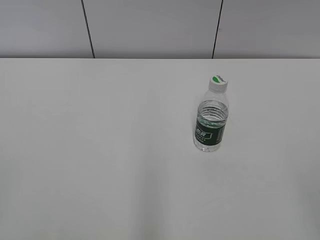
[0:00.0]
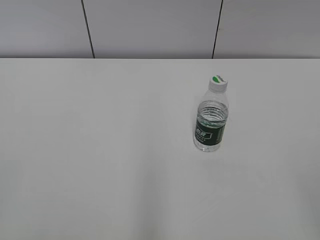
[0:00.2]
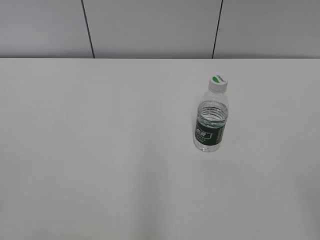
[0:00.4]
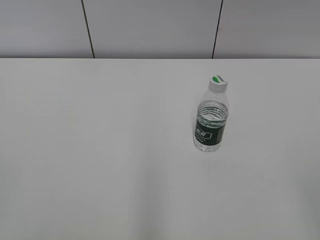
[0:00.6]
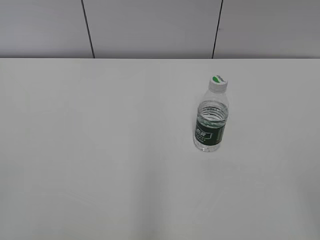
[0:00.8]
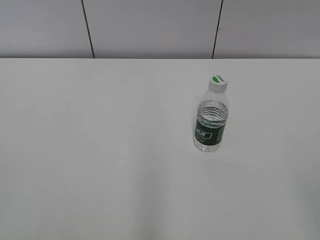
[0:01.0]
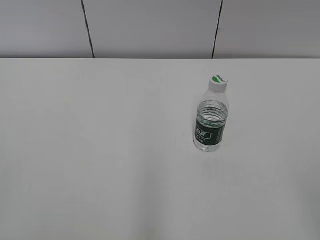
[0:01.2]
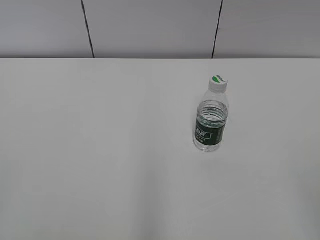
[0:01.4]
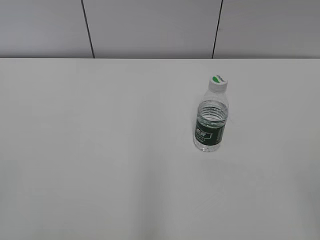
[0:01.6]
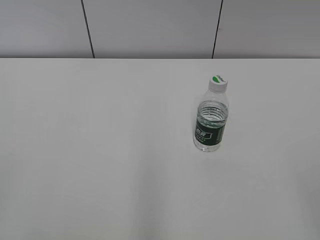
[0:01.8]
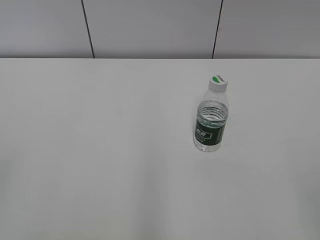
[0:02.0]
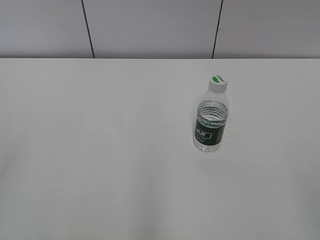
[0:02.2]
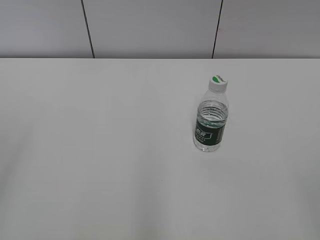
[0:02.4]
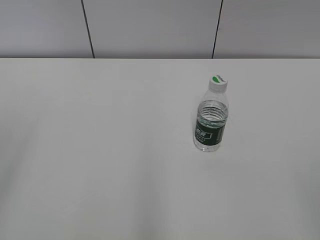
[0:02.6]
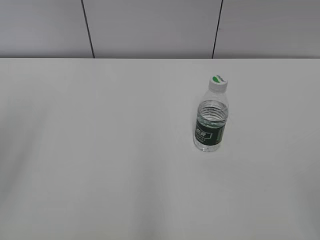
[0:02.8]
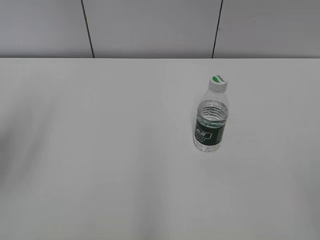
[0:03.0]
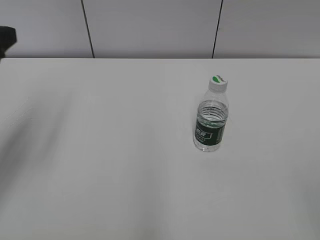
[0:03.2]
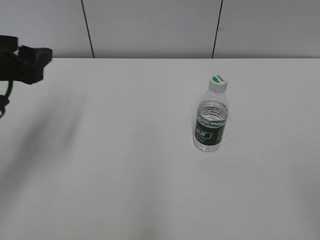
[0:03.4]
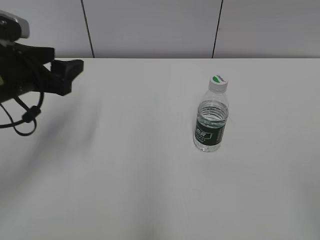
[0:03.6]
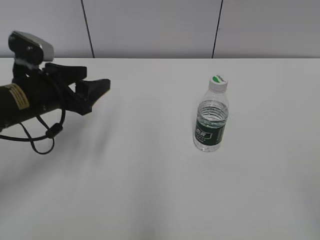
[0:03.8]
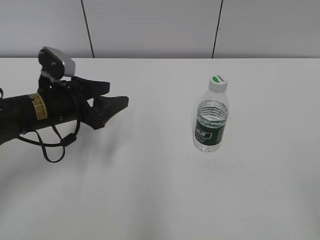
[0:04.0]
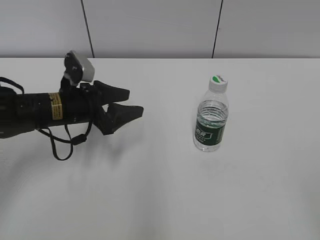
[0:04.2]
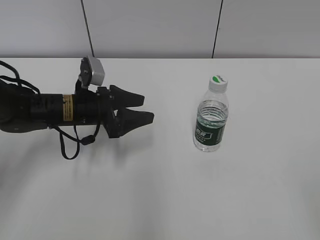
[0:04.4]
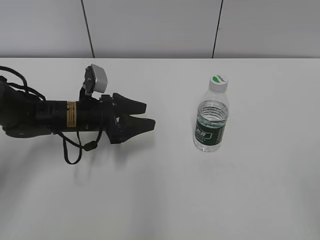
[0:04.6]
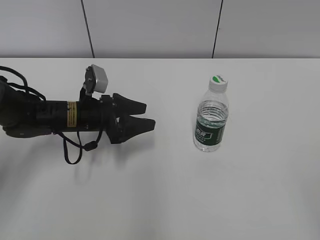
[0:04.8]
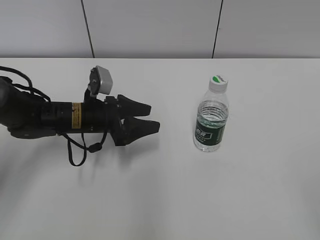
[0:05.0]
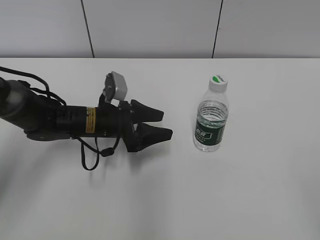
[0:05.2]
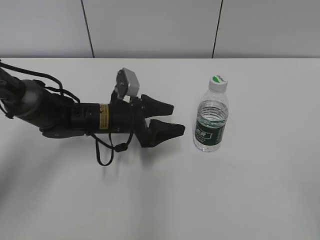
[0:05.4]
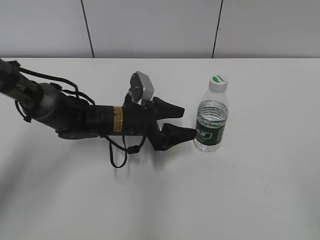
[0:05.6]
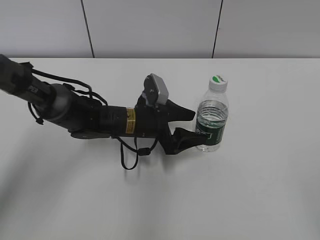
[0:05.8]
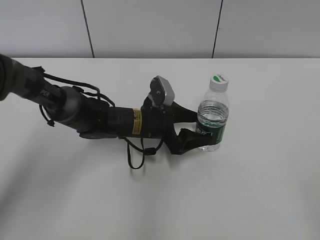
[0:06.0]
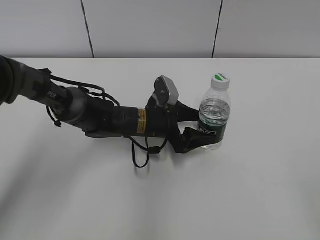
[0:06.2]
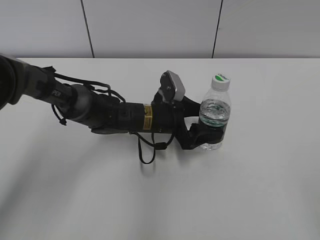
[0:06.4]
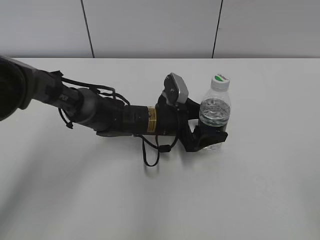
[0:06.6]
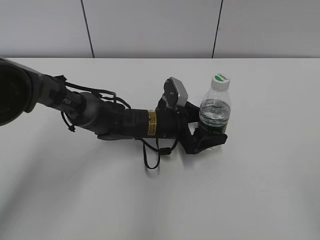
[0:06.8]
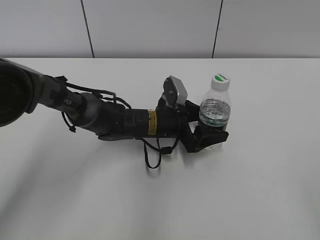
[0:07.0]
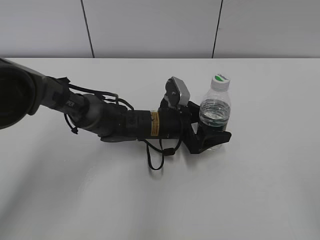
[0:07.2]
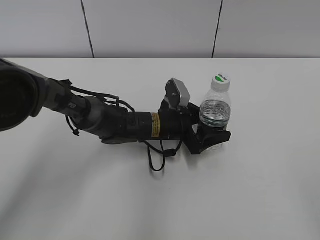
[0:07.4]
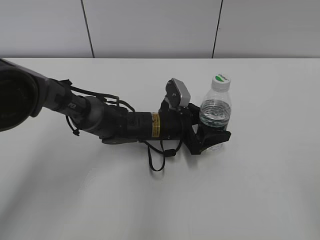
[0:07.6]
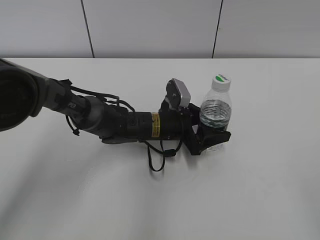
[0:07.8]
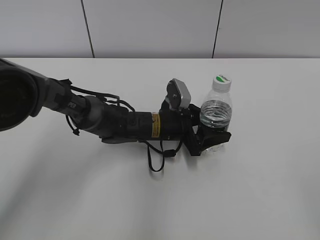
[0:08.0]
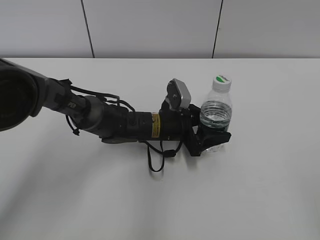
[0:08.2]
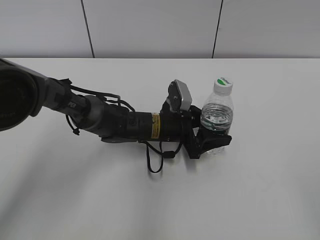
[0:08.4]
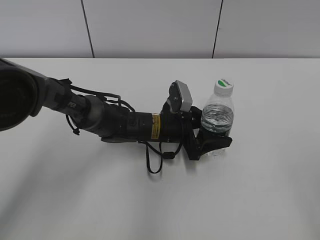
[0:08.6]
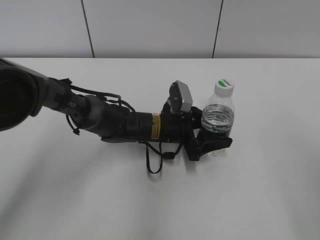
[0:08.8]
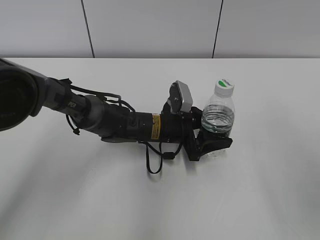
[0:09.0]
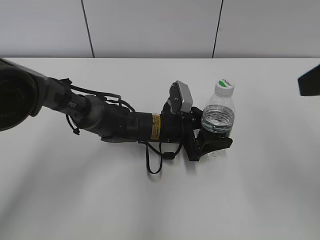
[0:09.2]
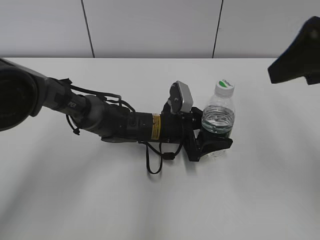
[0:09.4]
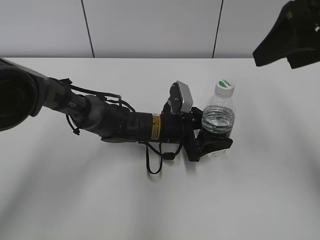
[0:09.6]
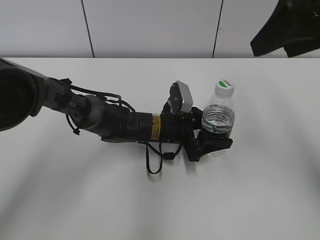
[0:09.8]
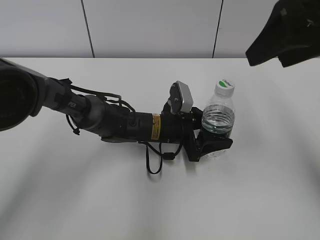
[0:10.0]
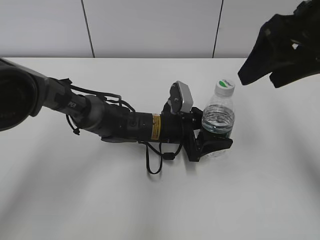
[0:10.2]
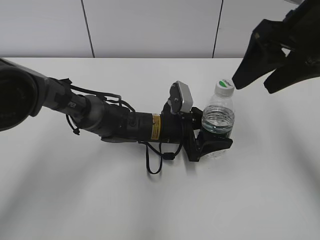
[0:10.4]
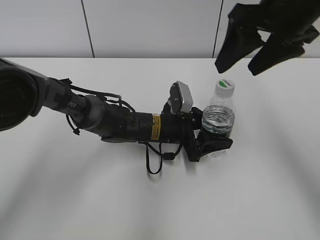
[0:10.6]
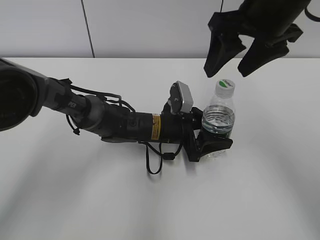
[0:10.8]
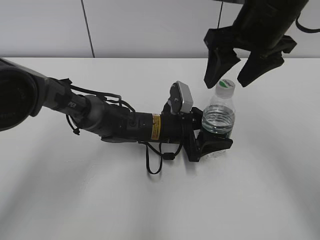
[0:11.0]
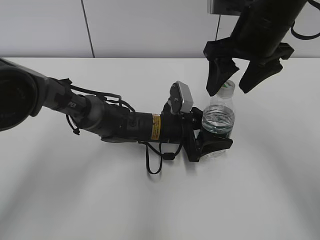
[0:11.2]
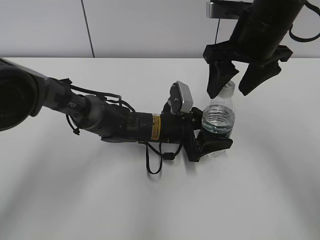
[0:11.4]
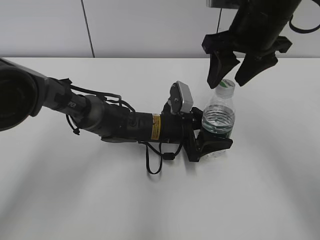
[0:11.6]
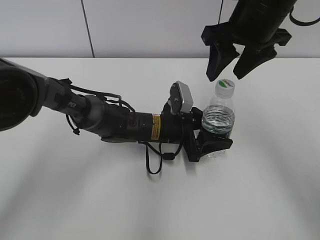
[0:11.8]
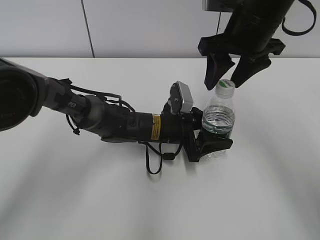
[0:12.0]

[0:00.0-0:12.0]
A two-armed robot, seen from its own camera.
Step, 0:00.0 to 0:08.0: Grab the C'estbon with the left hand.
0:01.6 to 0:03.0: The left gripper shifts roughly 20 cm forward, and opens.
0:03.0 to 0:04.4: The left gripper shifts about 30 cm downward, forward and to the right.
0:04.4 to 0:06.0: The left gripper moves to the right, approximately 10 cm.
0:06.0 to 0:07.6: The grippers move only a little.
0:07.6 to 0:09.0: The right gripper shifts some 15 cm forward and upward.
0:09.0 to 0:10.4: The right gripper is displaced forward by some 15 cm.
0:10.4 to 0:12.0: The right gripper heads forward and to the left, covering some 10 cm.

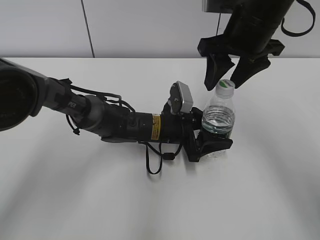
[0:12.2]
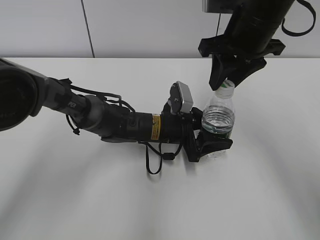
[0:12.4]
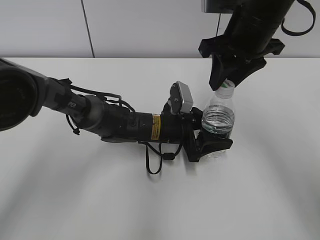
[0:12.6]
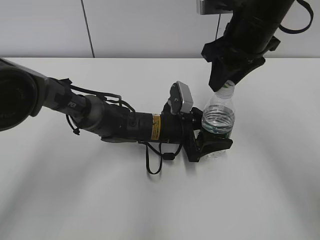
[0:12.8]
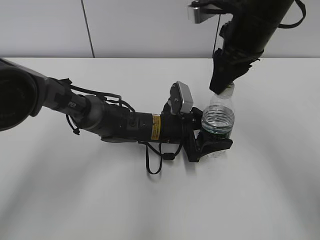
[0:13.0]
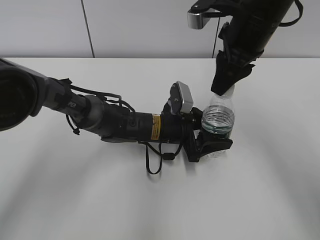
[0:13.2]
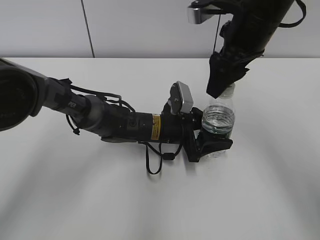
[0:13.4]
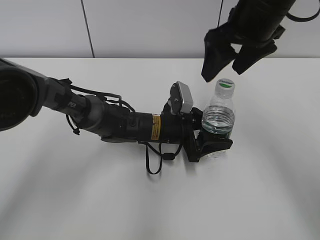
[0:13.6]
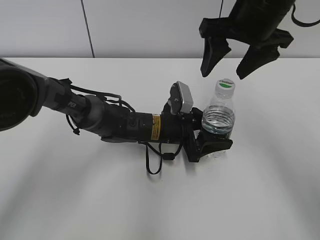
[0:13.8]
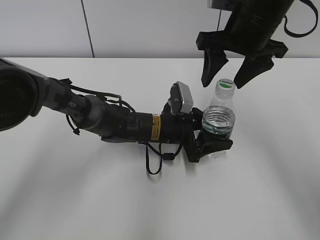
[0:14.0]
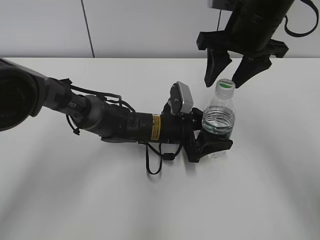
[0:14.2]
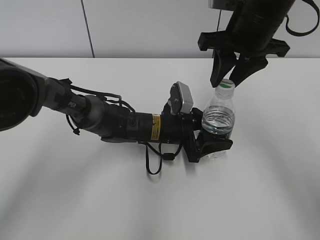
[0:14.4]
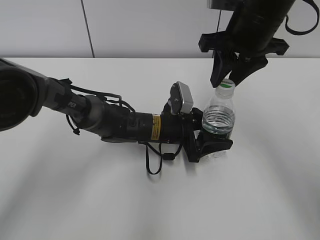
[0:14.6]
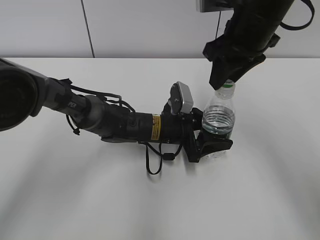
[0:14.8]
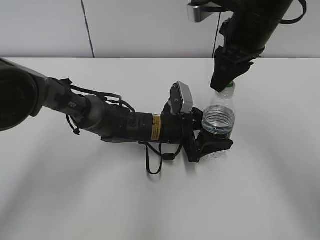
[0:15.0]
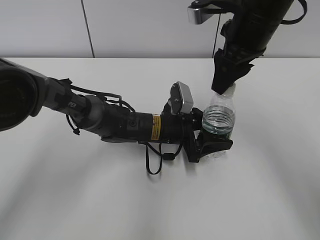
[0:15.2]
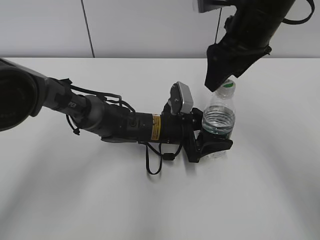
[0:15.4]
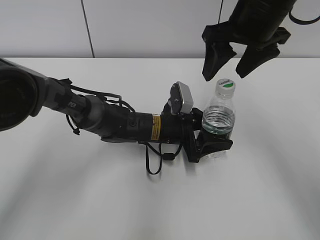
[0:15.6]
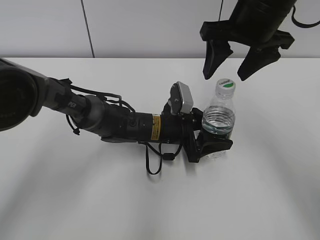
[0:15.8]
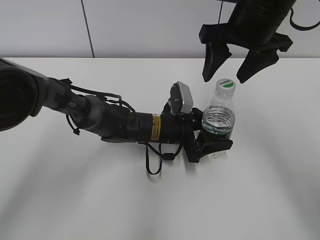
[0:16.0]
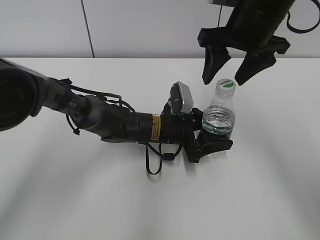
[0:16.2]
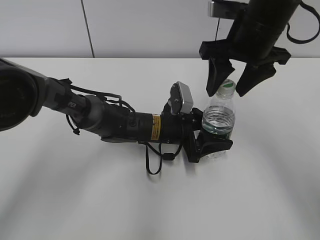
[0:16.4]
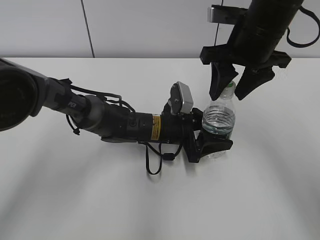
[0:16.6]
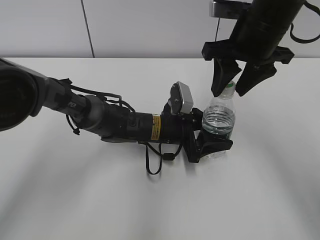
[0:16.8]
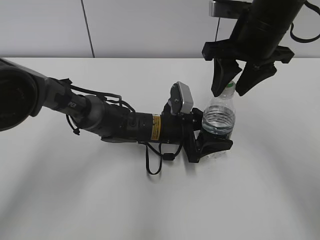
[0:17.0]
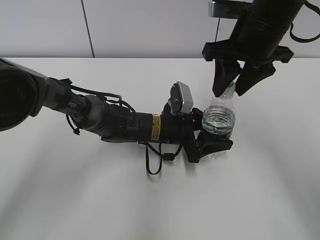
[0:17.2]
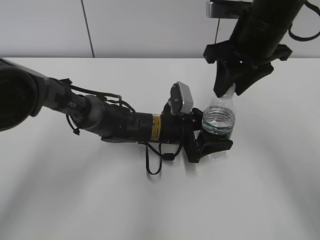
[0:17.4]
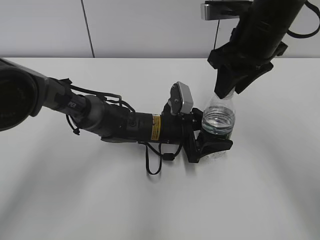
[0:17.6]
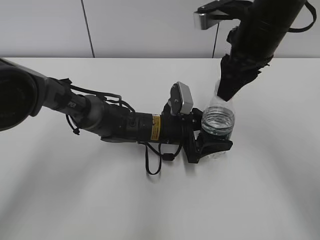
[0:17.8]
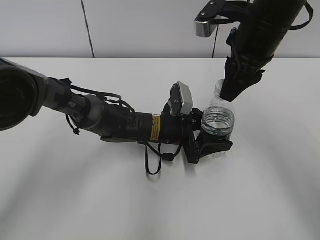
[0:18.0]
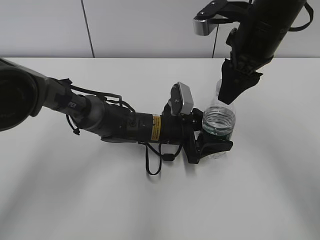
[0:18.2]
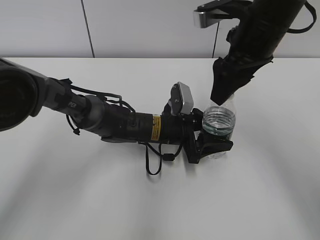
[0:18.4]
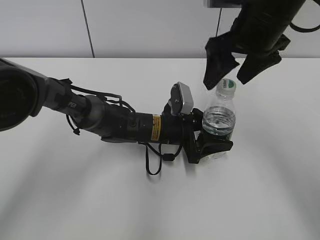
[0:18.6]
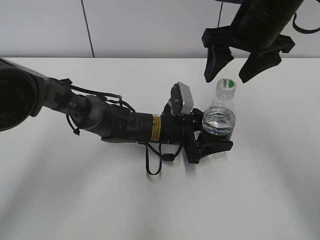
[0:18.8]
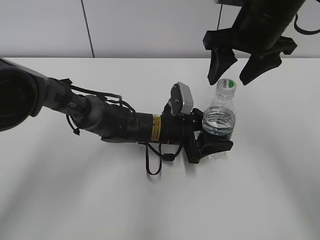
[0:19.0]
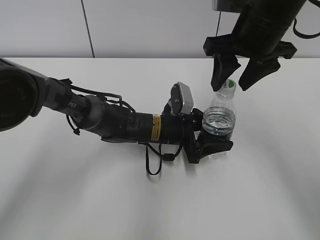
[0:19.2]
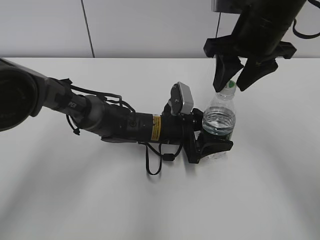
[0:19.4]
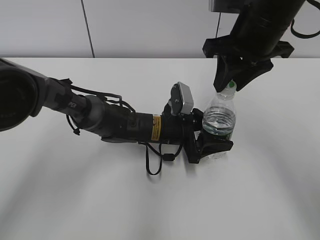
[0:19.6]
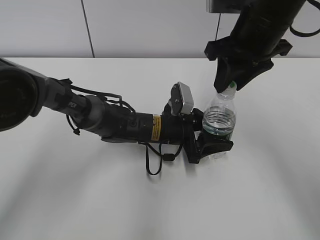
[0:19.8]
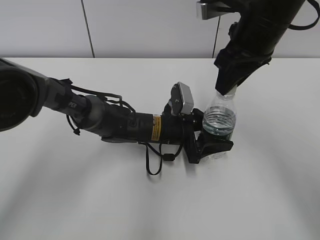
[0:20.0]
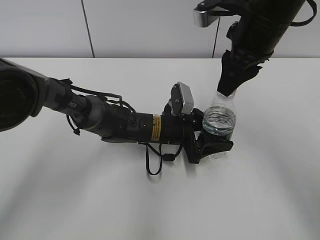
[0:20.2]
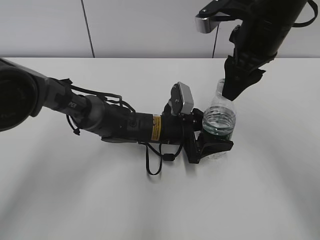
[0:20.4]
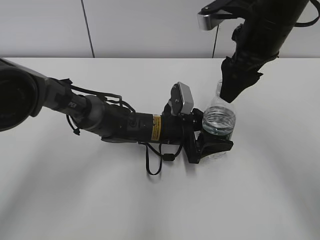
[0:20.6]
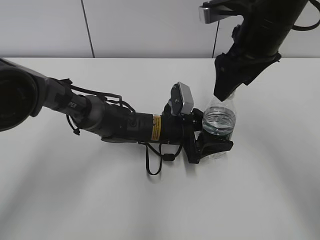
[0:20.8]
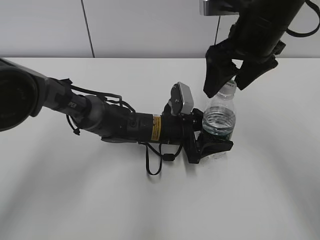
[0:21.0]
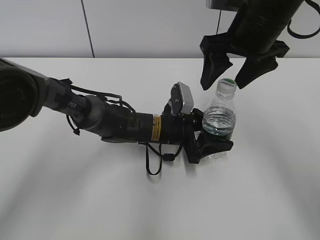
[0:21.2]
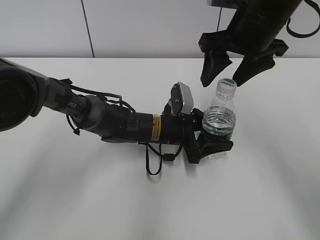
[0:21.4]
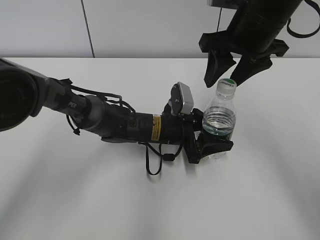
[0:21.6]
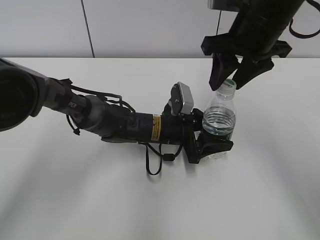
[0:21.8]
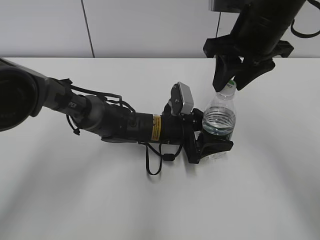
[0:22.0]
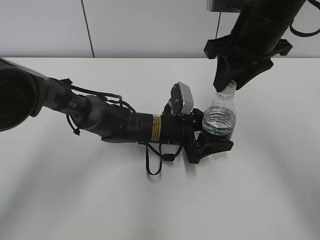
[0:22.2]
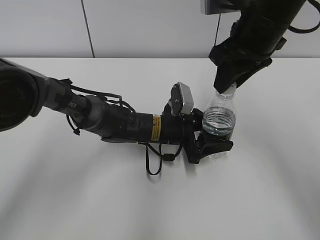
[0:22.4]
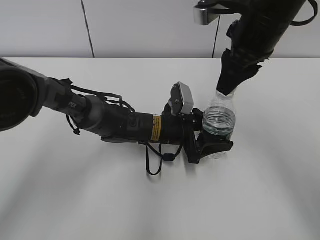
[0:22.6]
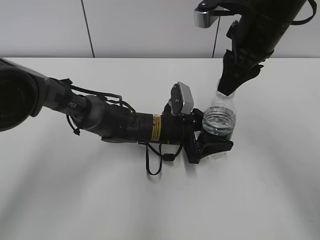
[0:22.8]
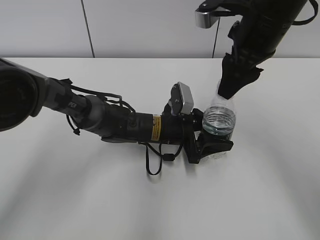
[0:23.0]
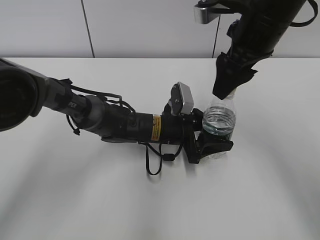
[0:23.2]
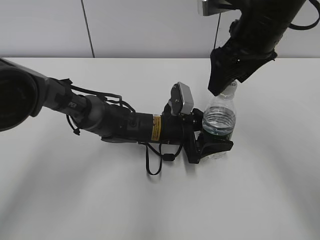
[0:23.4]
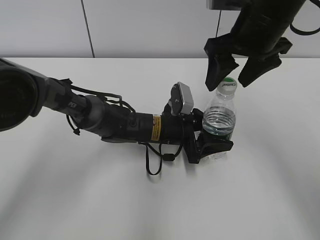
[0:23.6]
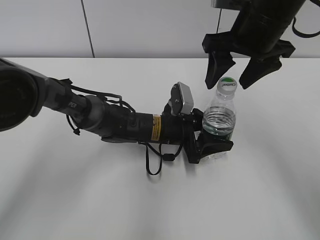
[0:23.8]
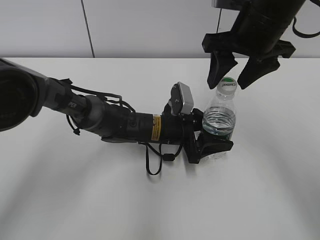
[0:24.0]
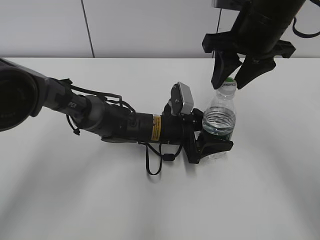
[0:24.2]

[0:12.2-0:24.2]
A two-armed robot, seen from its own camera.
0:12.2 to 0:13.8: The right gripper opens its fingers.
0:13.8 to 0:15.2: The right gripper closes.
0:15.2 to 0:16.6: The right gripper opens and closes again.
0:18.2 to 0:19.8: The right gripper opens and closes again.
0:19.8 to 0:21.2: The right gripper opens its fingers.
0:21.2 to 0:22.6: The right gripper closes up.
0:22.6 to 0:24.2: The right gripper opens, then closes again.
